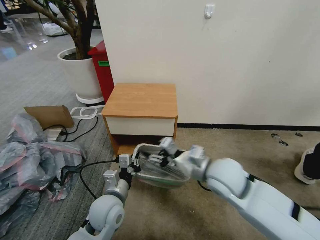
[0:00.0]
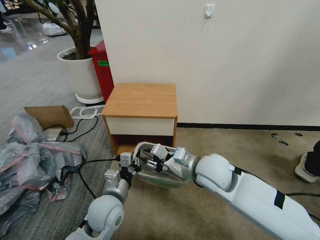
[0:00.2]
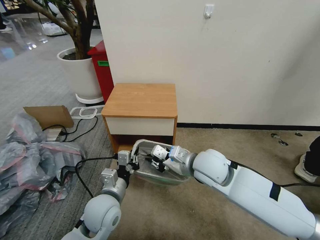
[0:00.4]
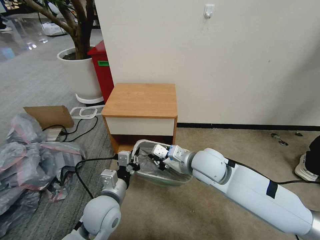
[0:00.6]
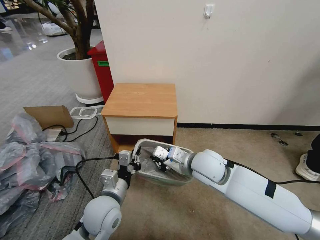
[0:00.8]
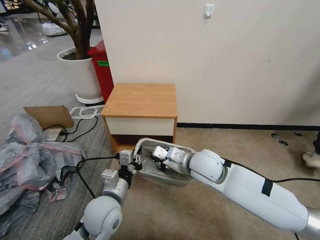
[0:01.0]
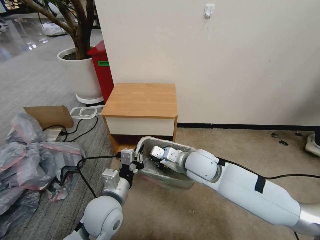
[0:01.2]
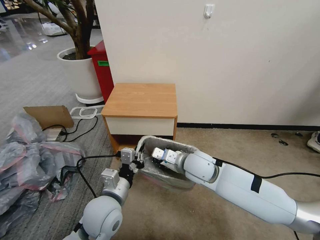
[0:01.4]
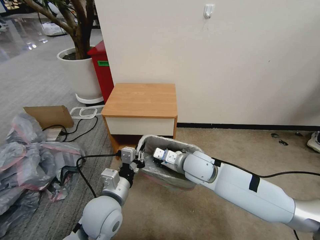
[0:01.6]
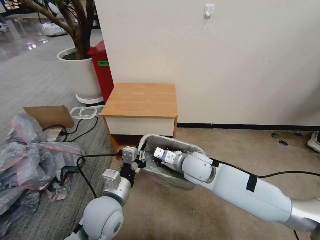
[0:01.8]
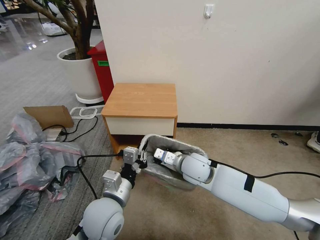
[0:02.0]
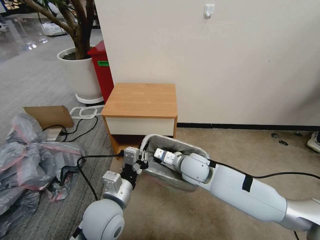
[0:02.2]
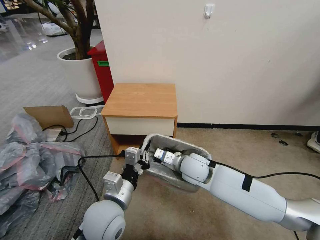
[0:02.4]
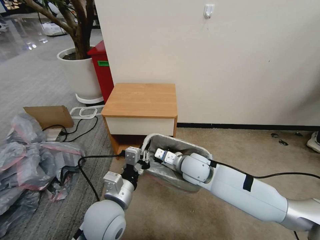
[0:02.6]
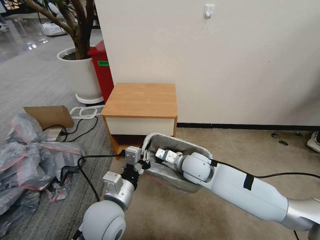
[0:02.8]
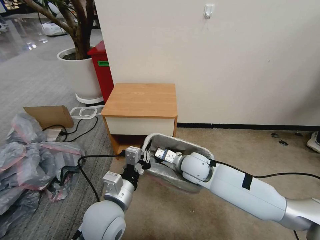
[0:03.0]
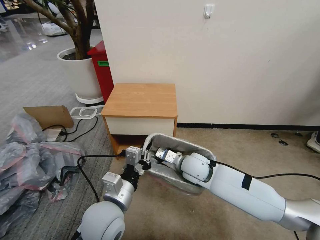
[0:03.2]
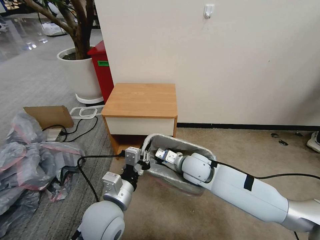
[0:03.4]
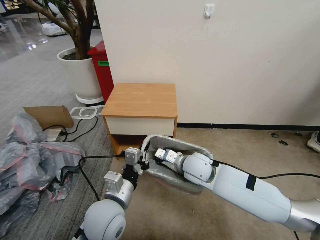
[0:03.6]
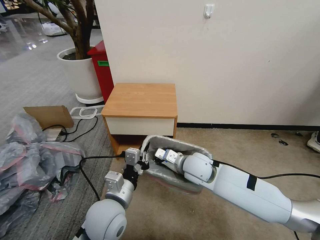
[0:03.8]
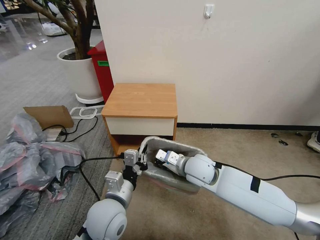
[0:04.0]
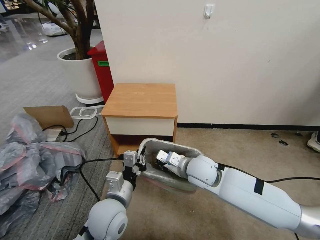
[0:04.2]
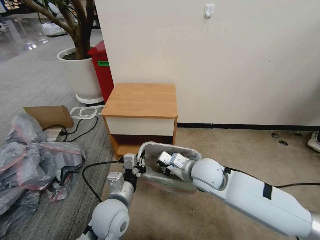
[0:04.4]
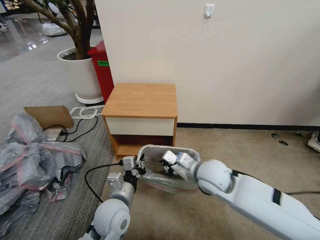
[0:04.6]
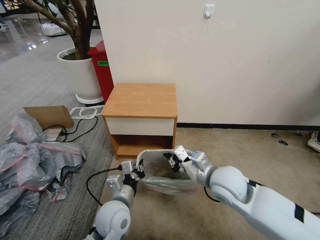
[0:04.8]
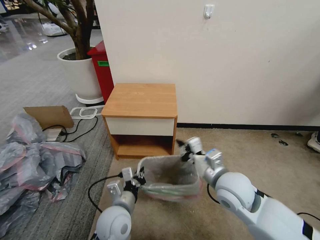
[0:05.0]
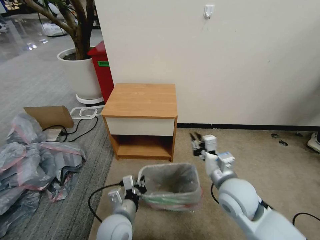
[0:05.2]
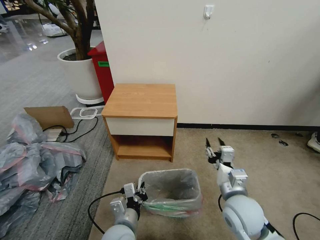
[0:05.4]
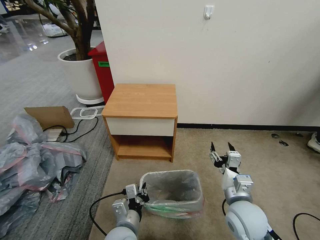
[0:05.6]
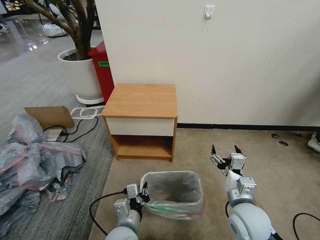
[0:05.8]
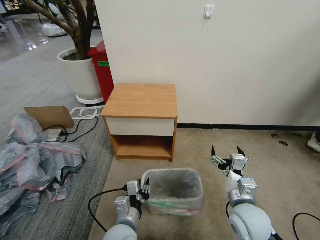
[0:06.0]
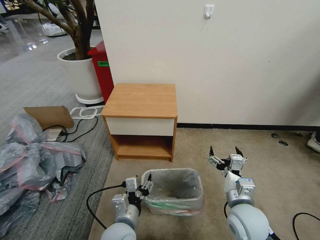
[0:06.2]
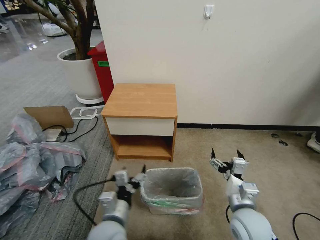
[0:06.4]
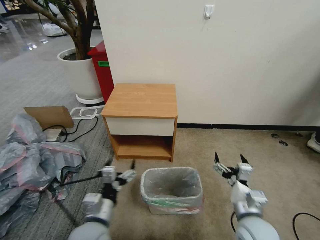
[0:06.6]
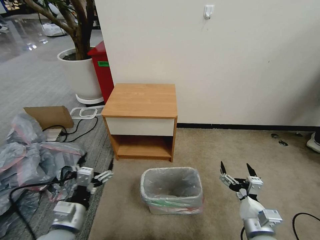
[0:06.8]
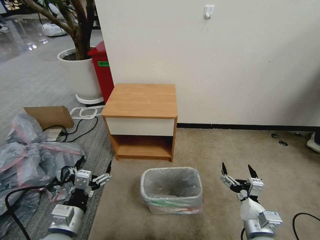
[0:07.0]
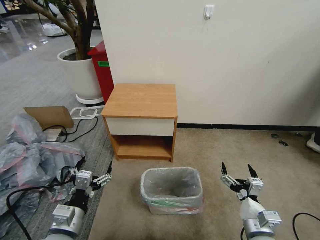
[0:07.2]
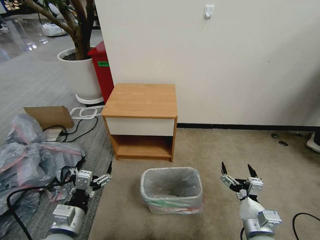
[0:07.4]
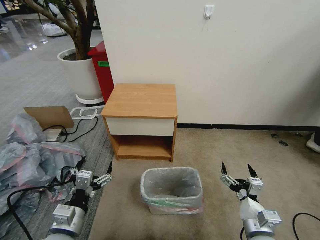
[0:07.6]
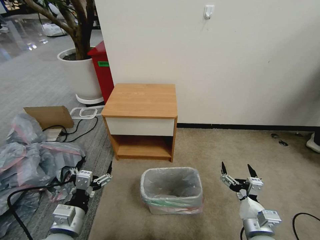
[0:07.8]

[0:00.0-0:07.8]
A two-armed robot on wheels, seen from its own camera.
Task of the whole recording: Pick up the garbage bag from the table and place it over the trash can.
0.0 to 1.6 s: The right gripper shifts roughly 10 cm forward, downward and to the left, and closes its fingers. Meanwhile the left gripper shifts roughly 5 cm upward.
1.6 to 3.2 s: The grippers make only small movements.
3.2 to 4.6 s: The left gripper heads downward, covering about 5 cm. The right gripper heads backward, covering roughly 5 cm.
4.6 to 6.2 s: The left gripper moves backward, approximately 5 cm, and opens, while the right gripper moves backward, to the right and downward, approximately 15 cm, and opens.
6.2 to 7.8 s: The left gripper travels to the left by some 15 cm, and opens its fingers; the right gripper heads backward, covering about 5 cm.

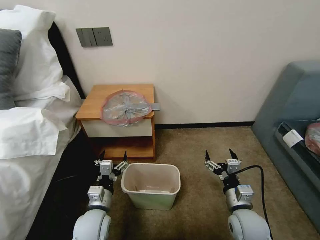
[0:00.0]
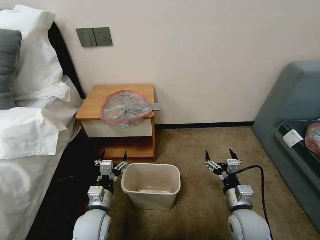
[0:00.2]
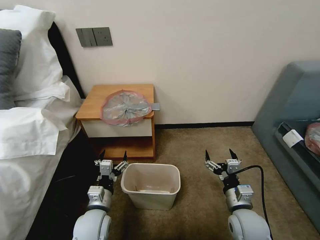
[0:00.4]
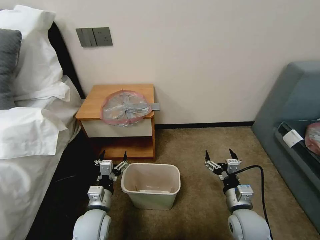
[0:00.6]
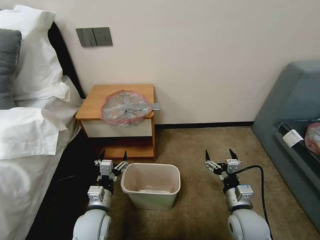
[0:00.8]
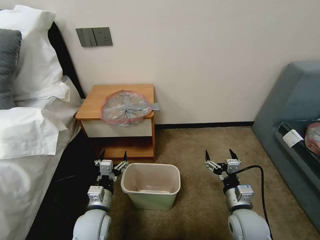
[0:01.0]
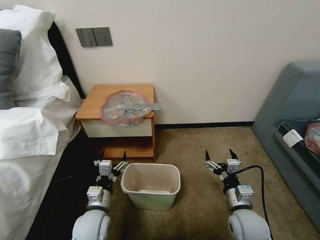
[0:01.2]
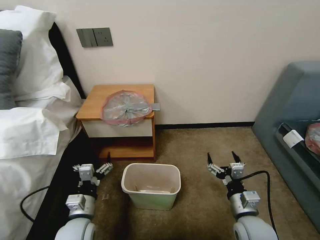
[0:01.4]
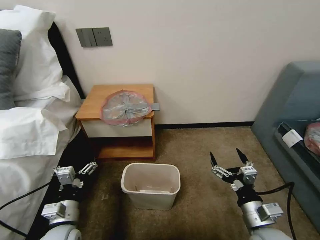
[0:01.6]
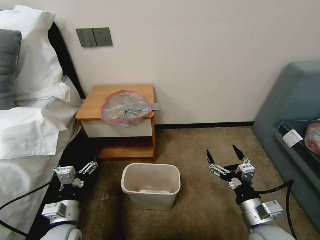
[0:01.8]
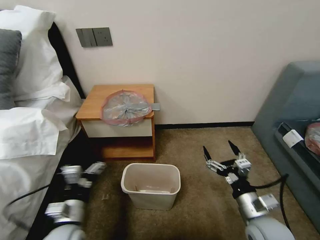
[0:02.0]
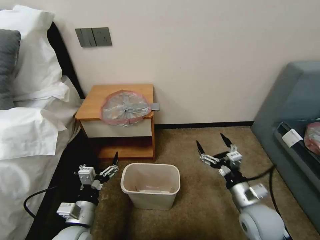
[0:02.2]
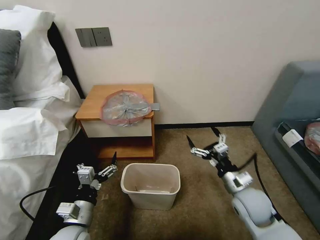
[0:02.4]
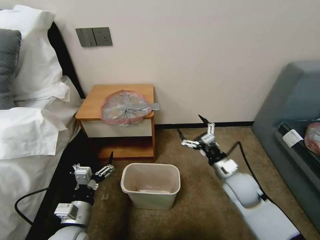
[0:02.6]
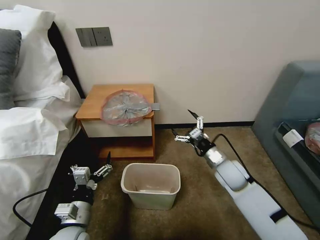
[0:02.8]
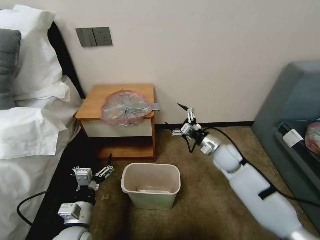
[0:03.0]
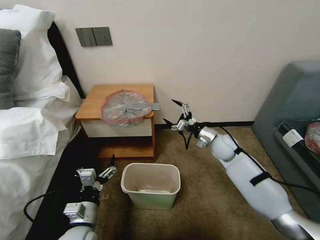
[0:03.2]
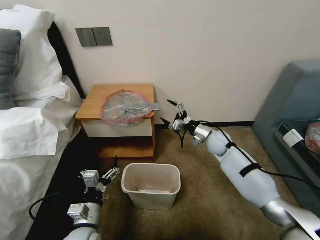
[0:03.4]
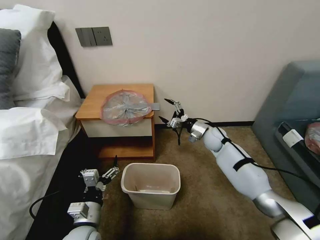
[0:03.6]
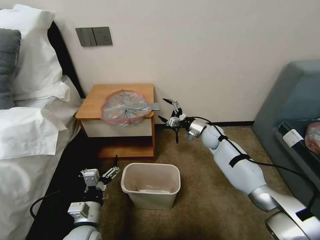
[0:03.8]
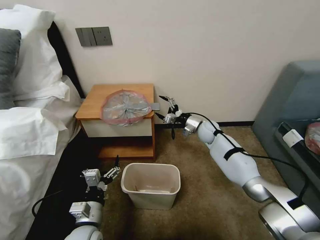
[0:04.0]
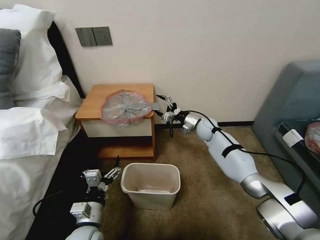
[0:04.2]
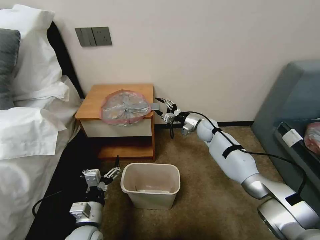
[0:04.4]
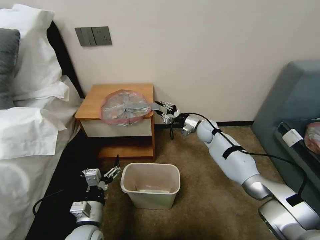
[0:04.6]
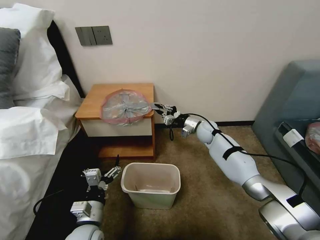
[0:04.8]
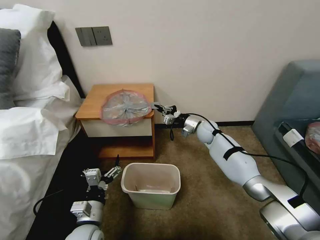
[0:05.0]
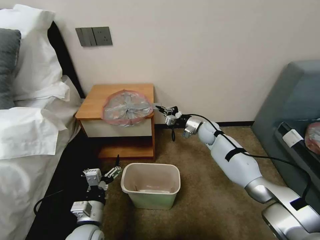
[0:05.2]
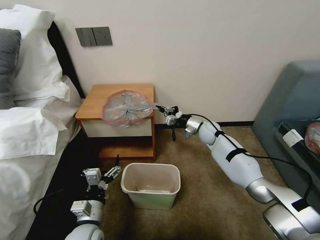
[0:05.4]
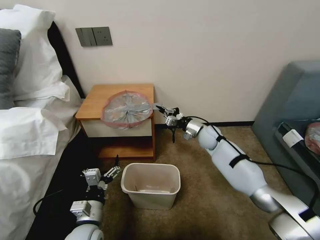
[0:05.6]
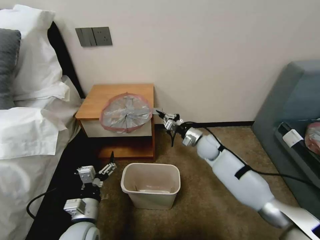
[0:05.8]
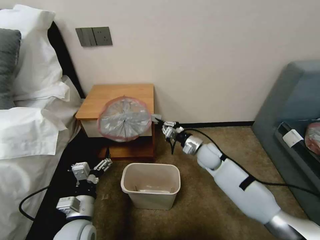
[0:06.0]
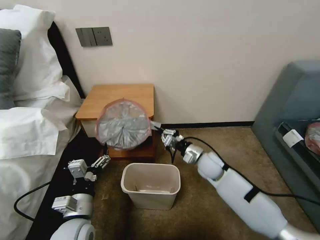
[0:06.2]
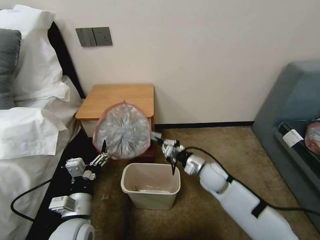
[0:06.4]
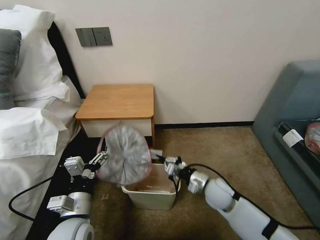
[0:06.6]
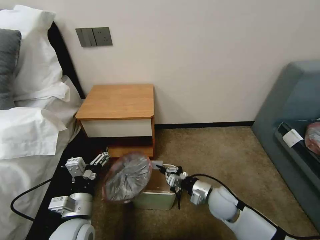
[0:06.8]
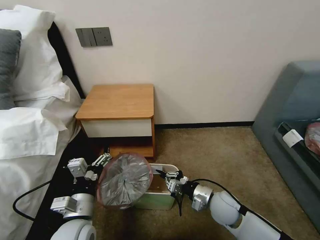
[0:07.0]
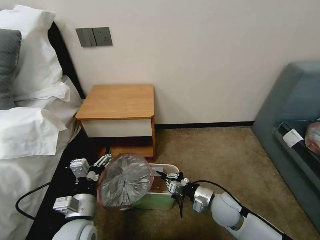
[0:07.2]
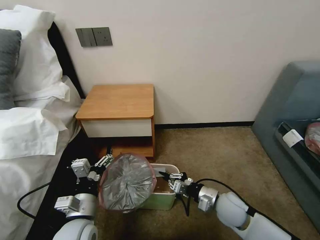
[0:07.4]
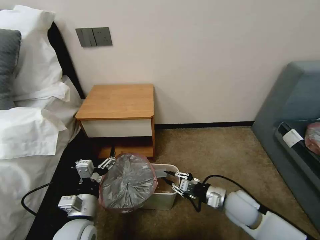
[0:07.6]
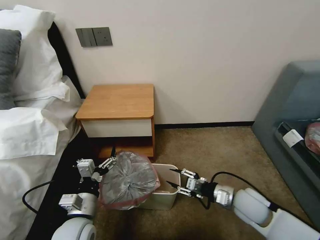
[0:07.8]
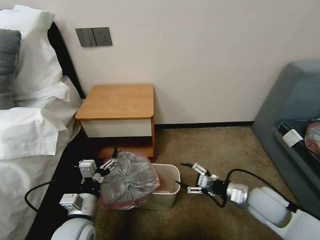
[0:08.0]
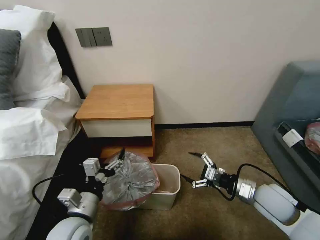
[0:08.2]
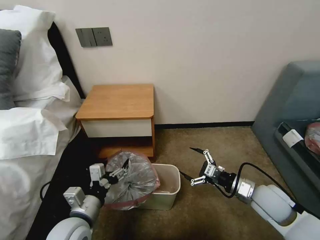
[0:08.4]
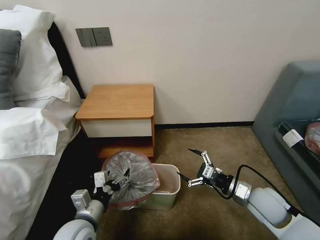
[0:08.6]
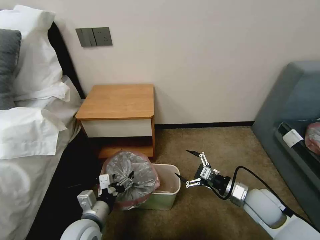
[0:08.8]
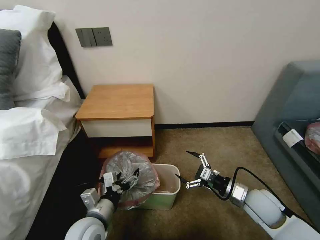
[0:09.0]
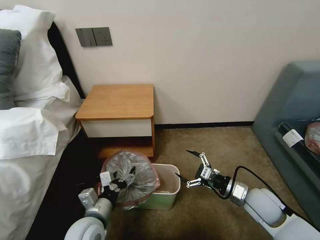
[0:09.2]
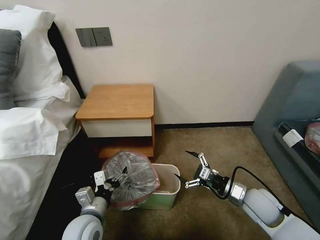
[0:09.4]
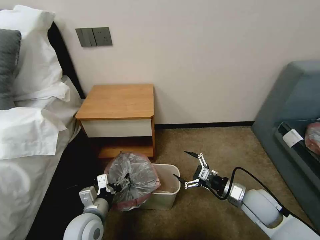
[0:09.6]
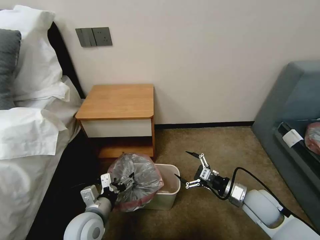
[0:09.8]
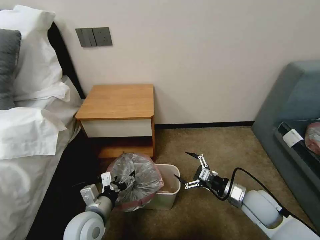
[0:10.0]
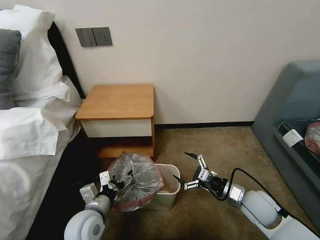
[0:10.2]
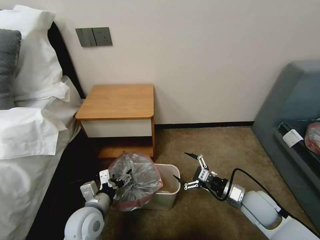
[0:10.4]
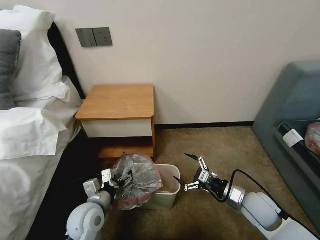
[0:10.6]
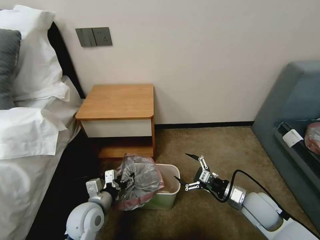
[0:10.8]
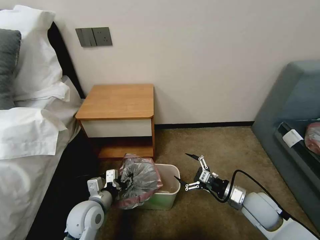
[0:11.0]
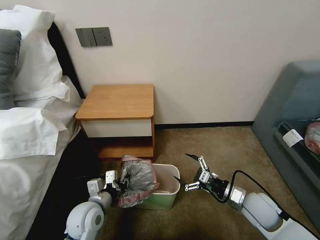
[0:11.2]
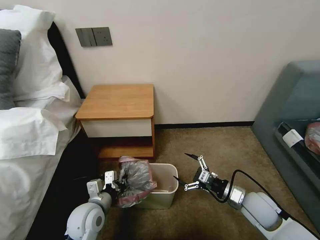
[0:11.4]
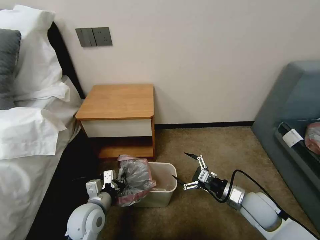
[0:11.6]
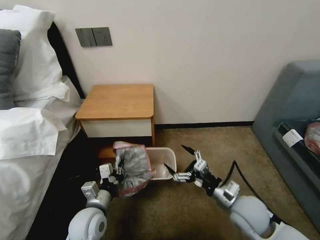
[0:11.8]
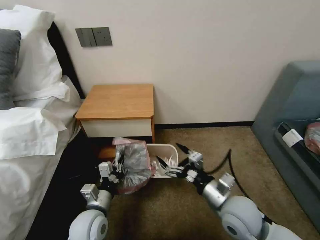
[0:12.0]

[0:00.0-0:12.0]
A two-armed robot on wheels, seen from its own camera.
Task of the whole recording: Pick up the garbage bag from the table and place it over the trash can.
1.6 to 3.0 s: The right gripper shifts about 25 cm forward.
3.0 to 4.4 s: The right gripper shifts about 15 cm forward, and closes up.
4.4 to 6.0 s: The right gripper is displaced backward by roughly 10 cm, and closes.
6.0 to 7.6 s: The right gripper travels backward by approximately 20 cm.
7.6 to 9.0 s: The right gripper goes some 5 cm to the right, and opens.
9.0 to 10.4 s: There are only small adjustments of the grippers.
10.4 to 12.0 s: The right gripper moves to the left and upward, roughly 10 cm; the left gripper closes.

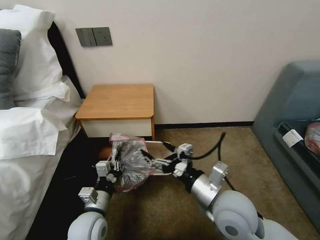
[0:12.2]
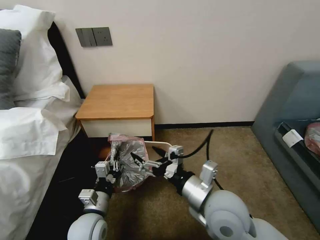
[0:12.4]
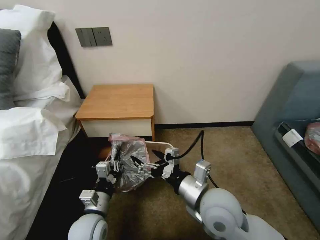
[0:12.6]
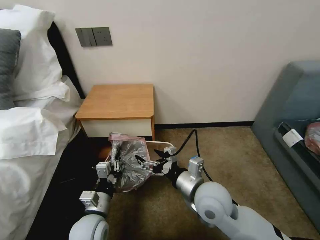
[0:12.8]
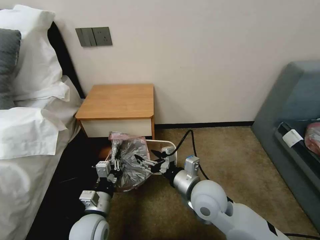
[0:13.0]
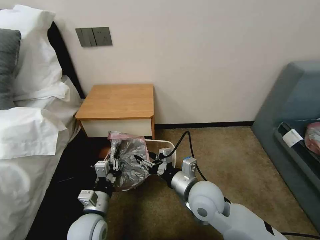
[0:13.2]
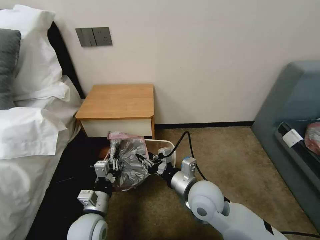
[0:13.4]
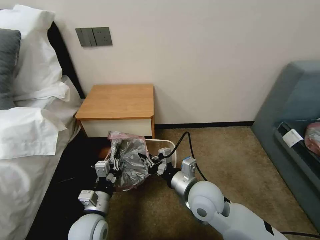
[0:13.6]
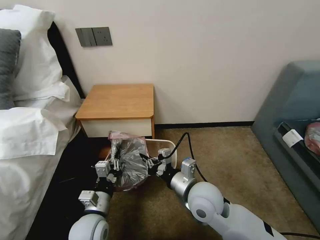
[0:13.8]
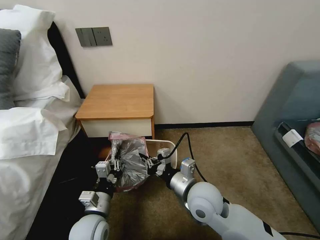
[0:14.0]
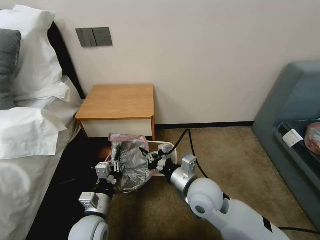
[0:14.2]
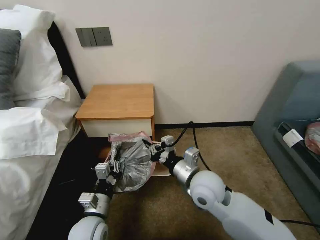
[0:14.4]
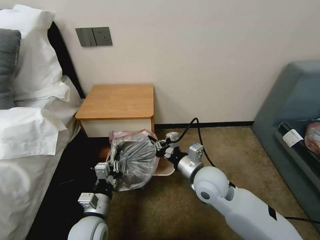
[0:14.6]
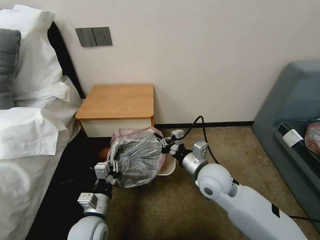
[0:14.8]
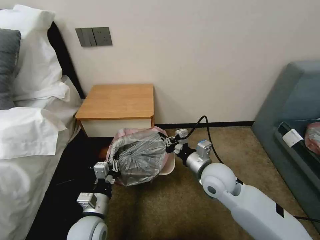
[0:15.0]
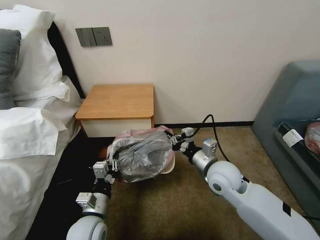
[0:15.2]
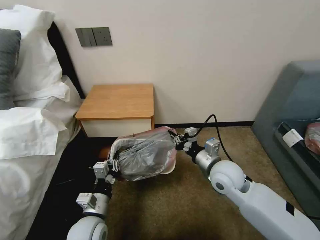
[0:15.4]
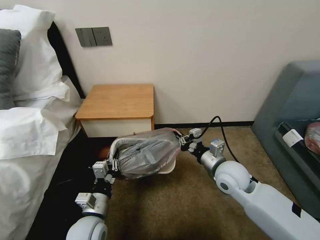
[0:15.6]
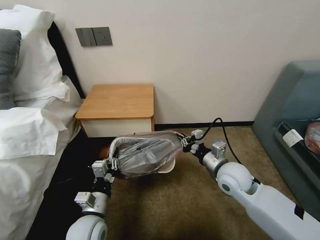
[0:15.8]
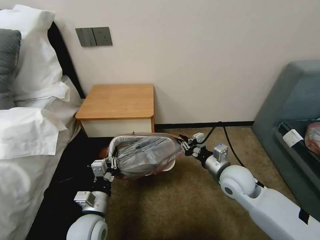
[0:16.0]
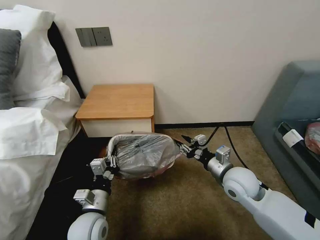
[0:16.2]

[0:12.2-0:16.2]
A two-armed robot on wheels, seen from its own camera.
Task of the whole recording: Pick up the garbage bag from the table and place it over the trash can.
12.2 to 13.6 s: The right gripper shifts approximately 5 cm to the left, and closes its fingers.
13.6 to 14.8 s: The right gripper moves some 5 cm.
14.8 to 16.2 s: The right gripper shifts some 10 cm to the right, and opens its fingers.
